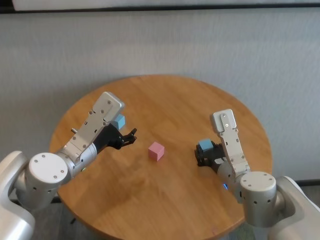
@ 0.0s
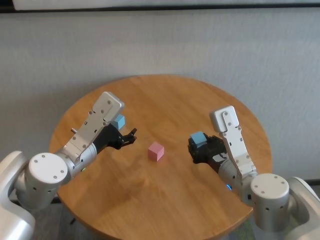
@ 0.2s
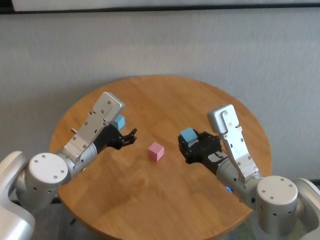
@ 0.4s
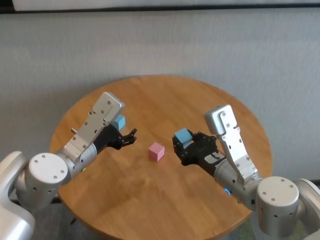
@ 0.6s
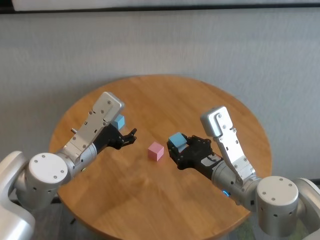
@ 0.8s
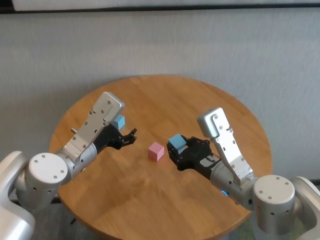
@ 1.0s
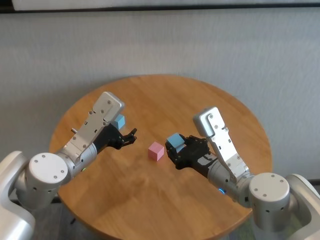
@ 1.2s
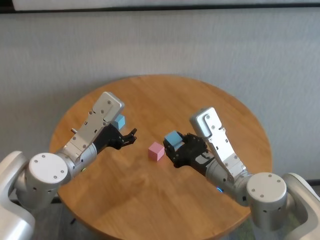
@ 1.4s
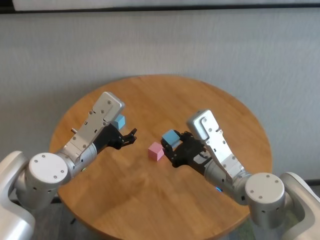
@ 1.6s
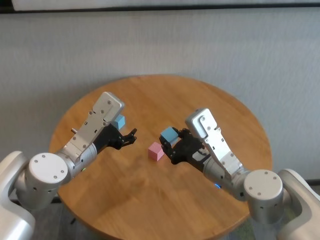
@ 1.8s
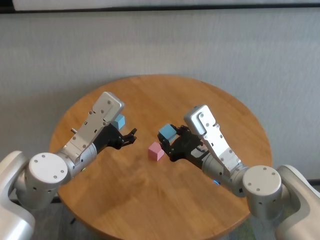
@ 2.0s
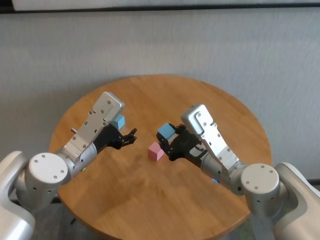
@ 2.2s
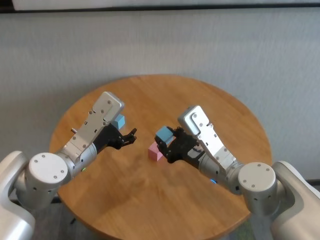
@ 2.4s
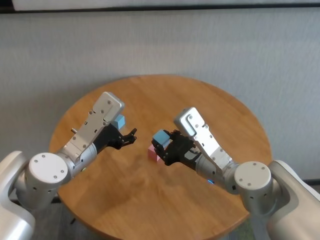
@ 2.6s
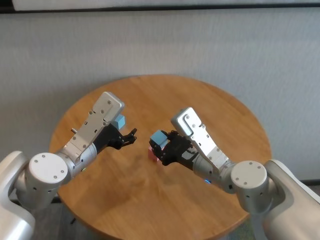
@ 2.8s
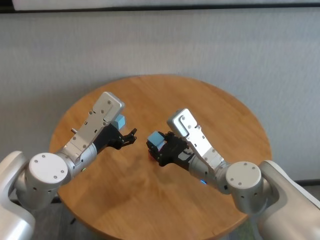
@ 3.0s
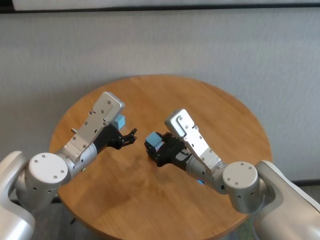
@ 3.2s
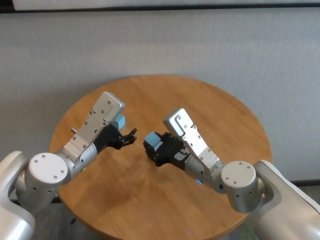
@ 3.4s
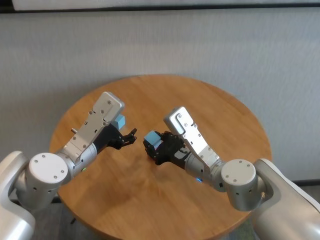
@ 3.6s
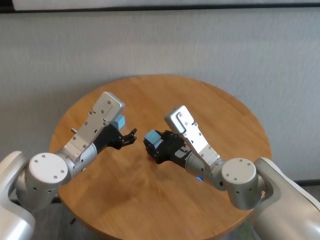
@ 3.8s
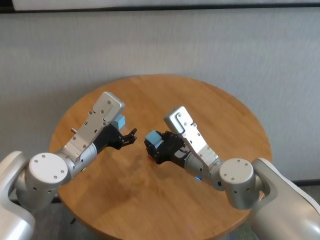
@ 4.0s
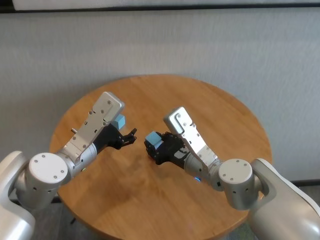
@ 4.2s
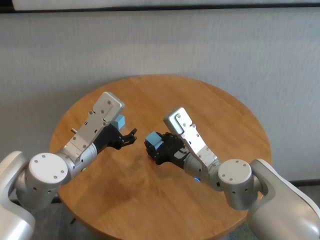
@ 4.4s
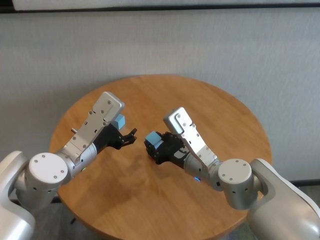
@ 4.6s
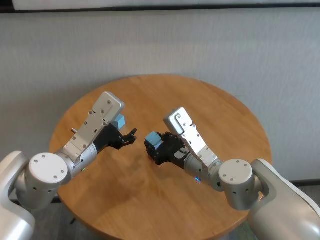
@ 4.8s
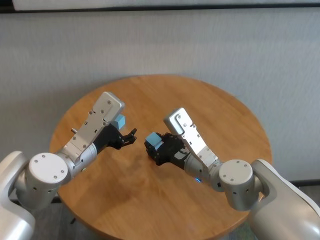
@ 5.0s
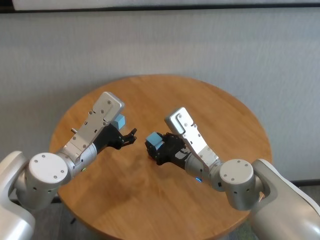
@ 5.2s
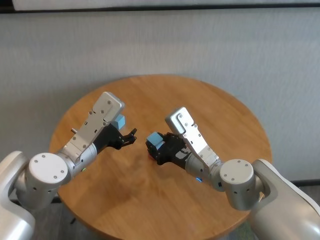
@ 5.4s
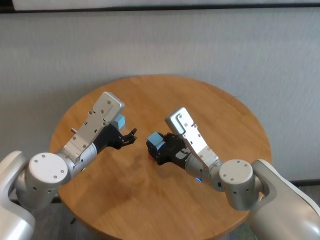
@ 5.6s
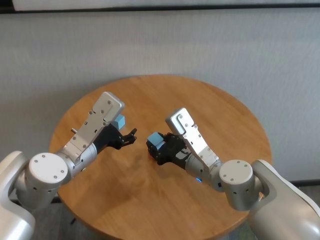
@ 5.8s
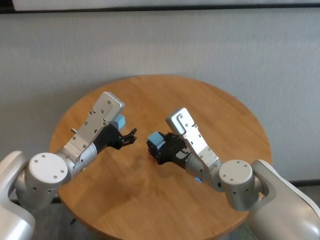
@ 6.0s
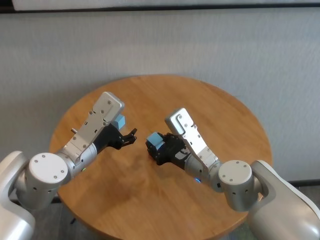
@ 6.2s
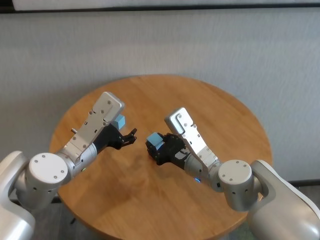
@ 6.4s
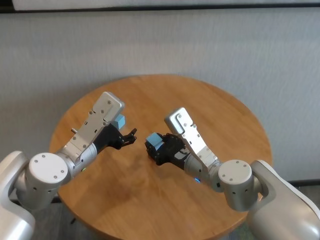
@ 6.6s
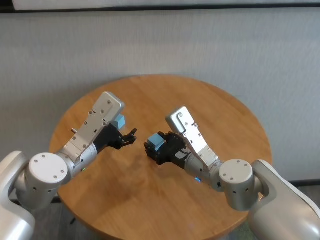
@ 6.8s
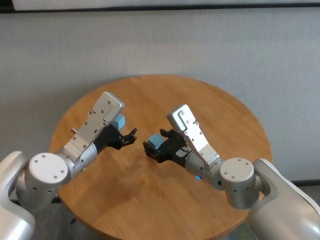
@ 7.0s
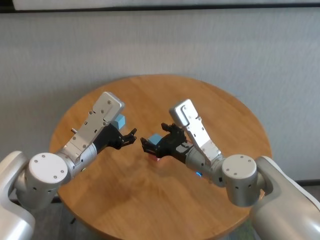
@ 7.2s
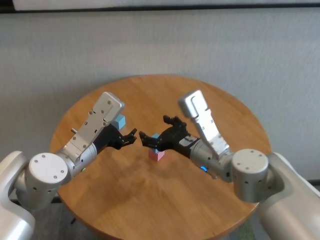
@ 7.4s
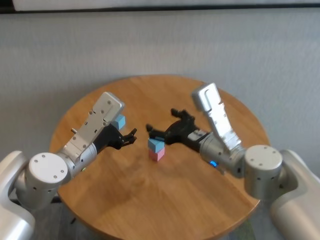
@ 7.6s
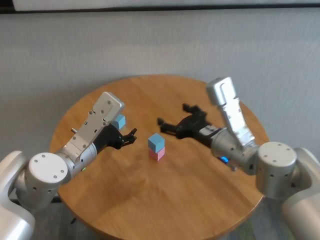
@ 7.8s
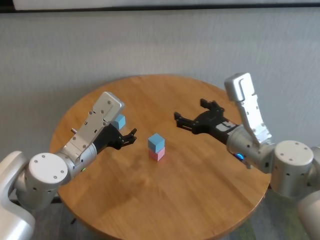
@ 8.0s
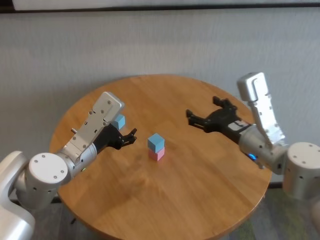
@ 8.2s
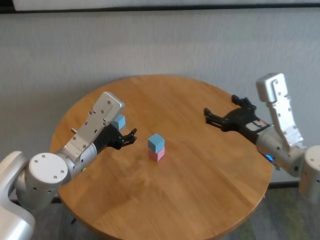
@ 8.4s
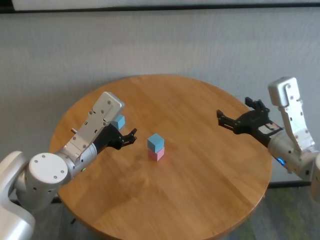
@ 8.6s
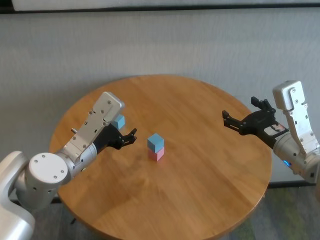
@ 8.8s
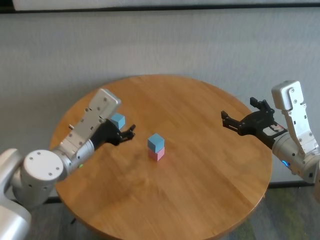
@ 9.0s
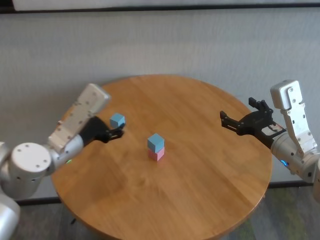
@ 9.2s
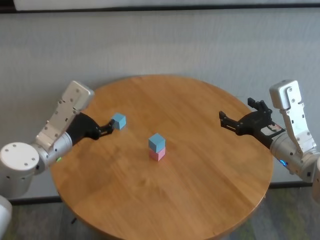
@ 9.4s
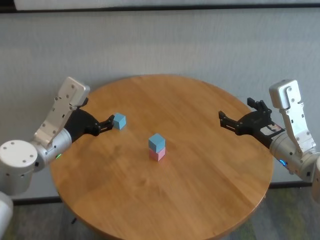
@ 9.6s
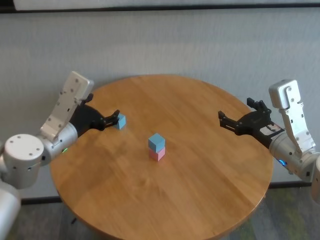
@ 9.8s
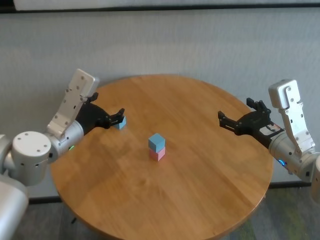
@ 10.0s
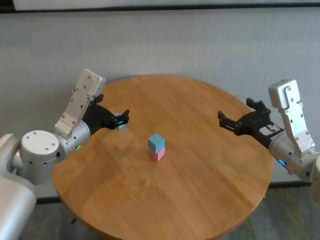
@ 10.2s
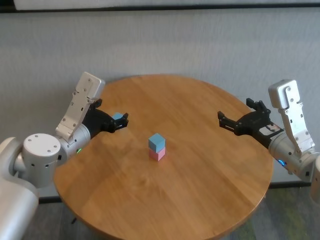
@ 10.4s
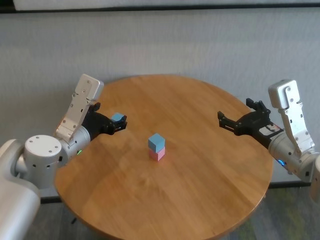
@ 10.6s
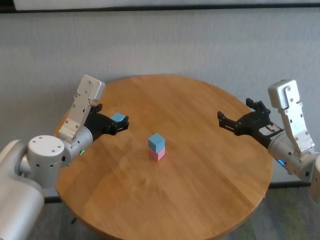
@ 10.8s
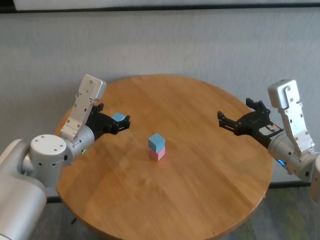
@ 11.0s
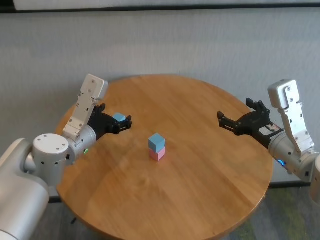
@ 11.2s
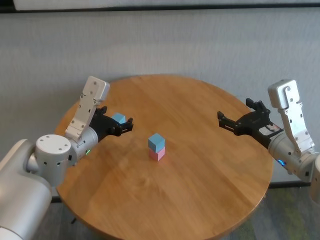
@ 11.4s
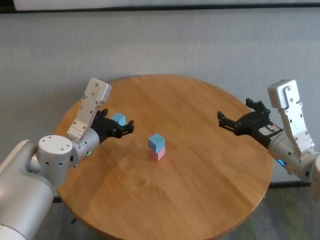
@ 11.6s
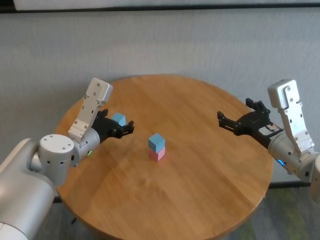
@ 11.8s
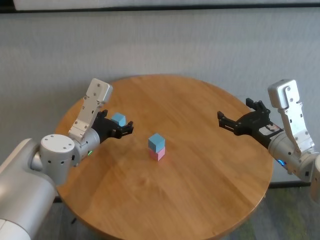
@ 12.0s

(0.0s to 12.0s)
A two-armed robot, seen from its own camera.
Task of the whole recording: stack building blocks on the table.
Step, 0.0s - 7.0s: Place the blue building block on the pink building blocks with right gripper.

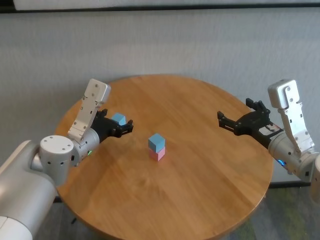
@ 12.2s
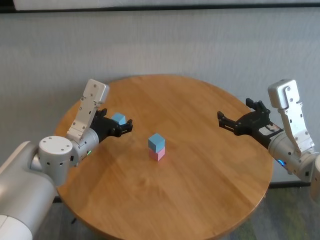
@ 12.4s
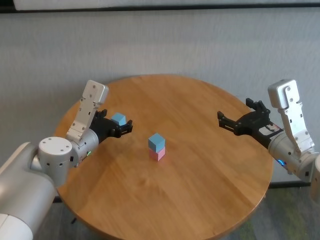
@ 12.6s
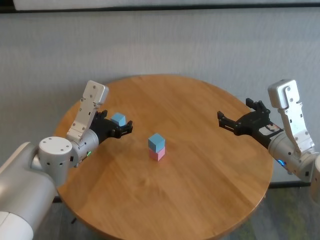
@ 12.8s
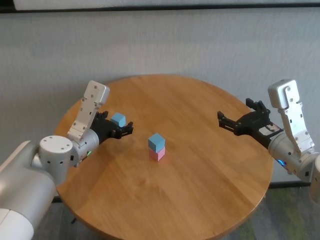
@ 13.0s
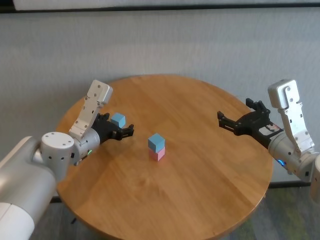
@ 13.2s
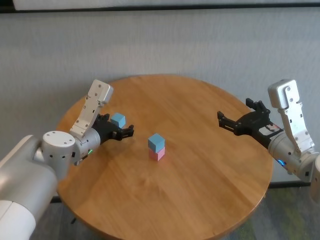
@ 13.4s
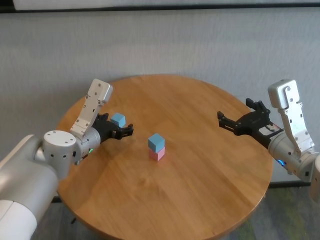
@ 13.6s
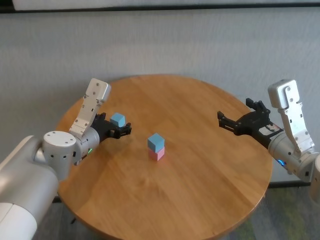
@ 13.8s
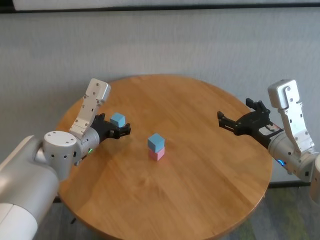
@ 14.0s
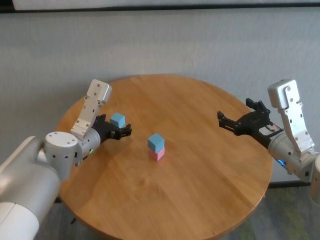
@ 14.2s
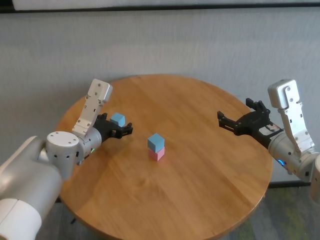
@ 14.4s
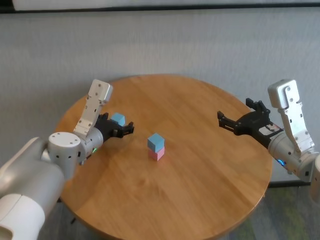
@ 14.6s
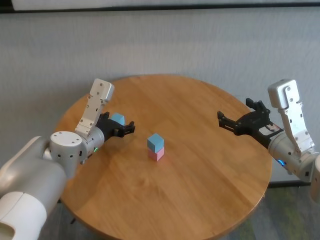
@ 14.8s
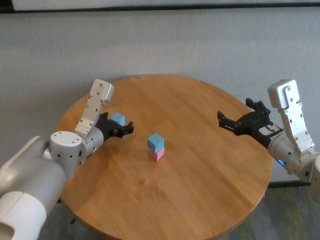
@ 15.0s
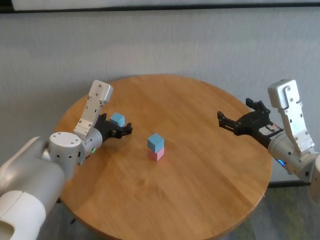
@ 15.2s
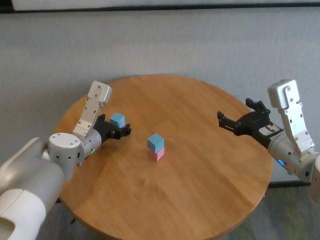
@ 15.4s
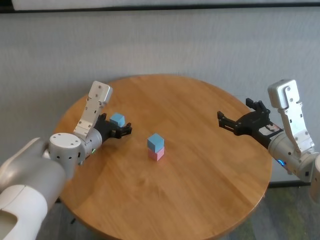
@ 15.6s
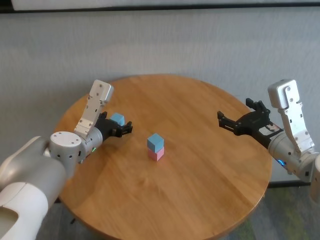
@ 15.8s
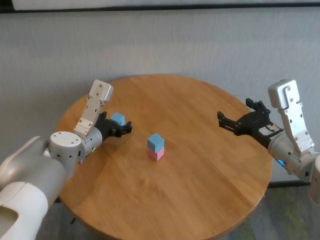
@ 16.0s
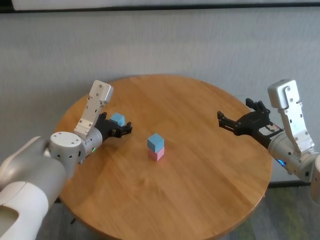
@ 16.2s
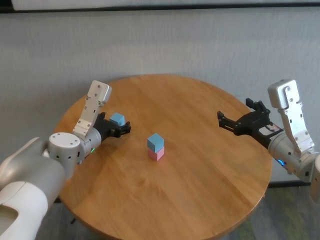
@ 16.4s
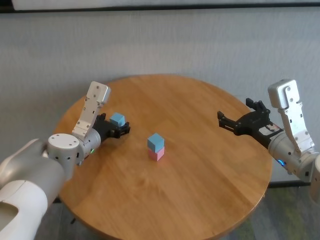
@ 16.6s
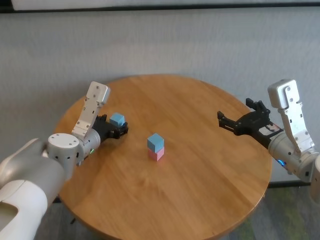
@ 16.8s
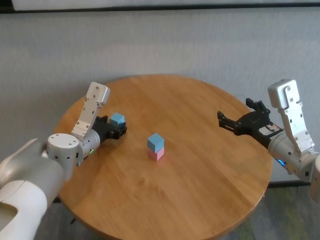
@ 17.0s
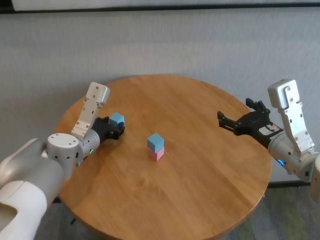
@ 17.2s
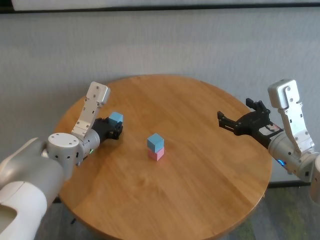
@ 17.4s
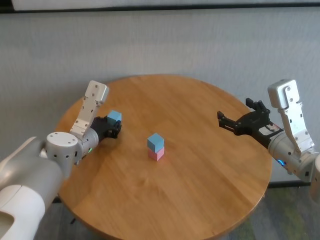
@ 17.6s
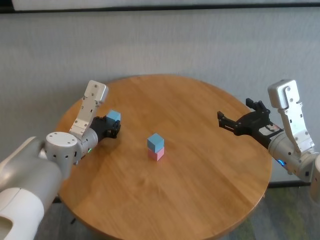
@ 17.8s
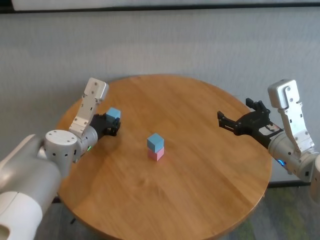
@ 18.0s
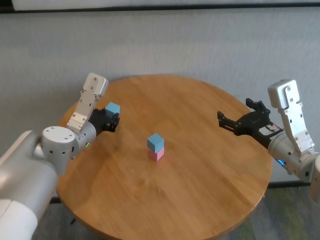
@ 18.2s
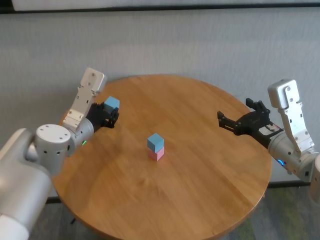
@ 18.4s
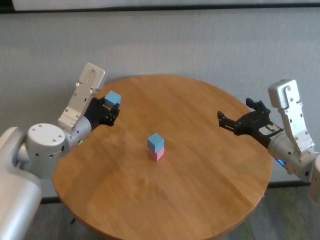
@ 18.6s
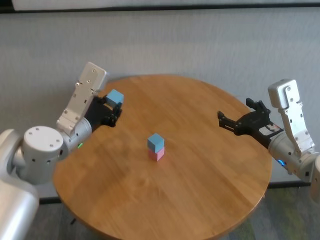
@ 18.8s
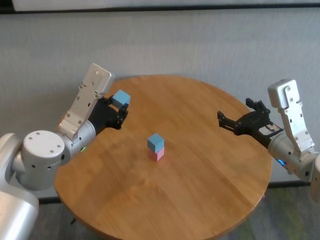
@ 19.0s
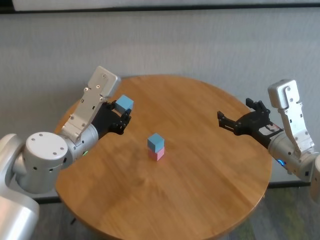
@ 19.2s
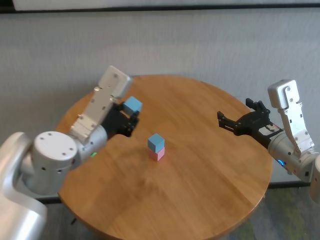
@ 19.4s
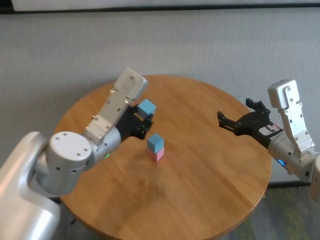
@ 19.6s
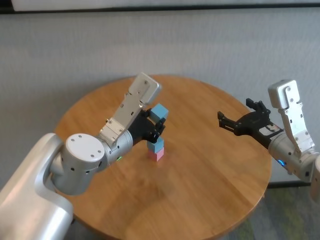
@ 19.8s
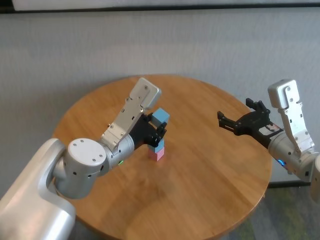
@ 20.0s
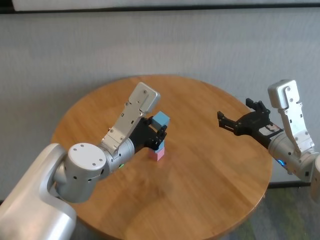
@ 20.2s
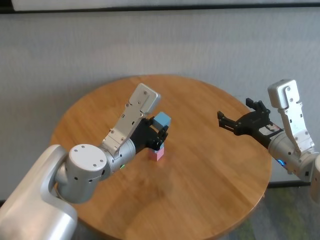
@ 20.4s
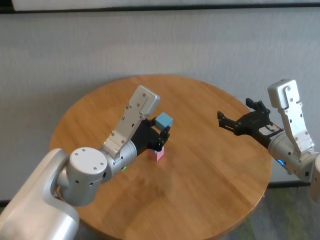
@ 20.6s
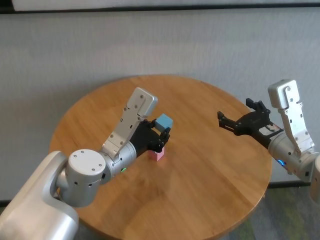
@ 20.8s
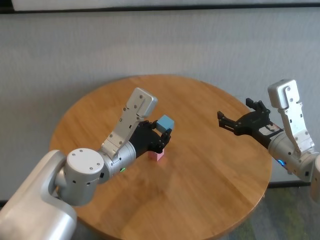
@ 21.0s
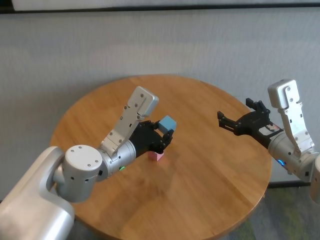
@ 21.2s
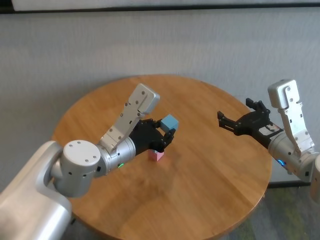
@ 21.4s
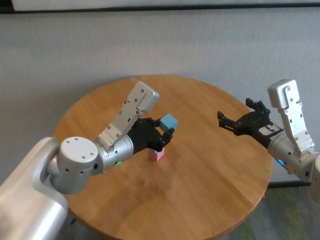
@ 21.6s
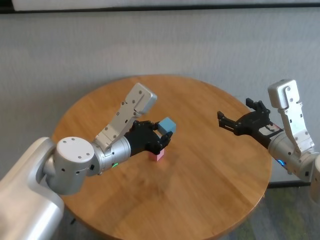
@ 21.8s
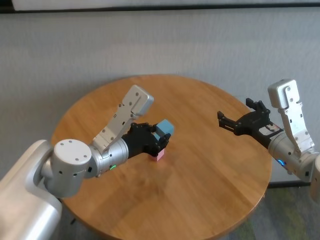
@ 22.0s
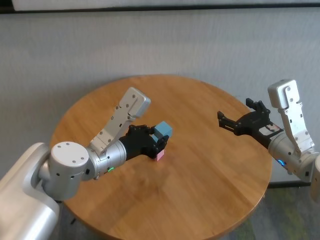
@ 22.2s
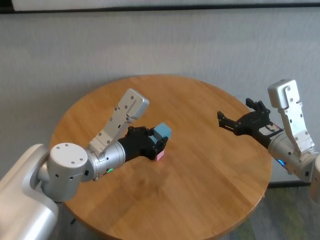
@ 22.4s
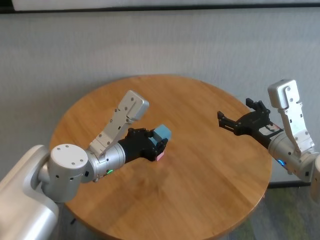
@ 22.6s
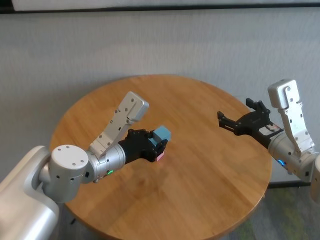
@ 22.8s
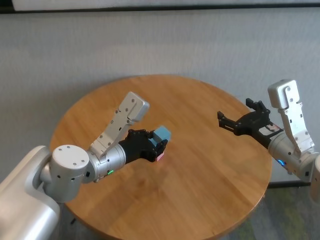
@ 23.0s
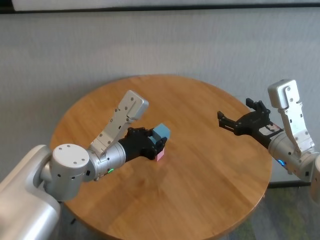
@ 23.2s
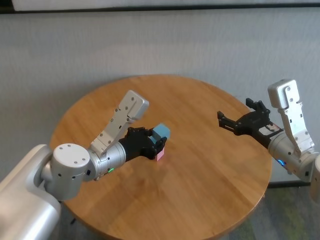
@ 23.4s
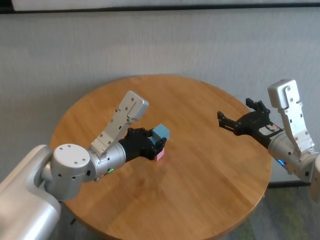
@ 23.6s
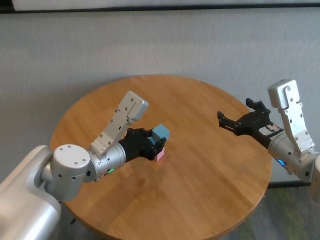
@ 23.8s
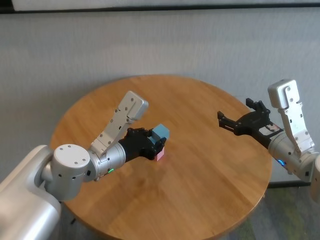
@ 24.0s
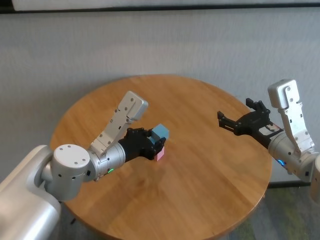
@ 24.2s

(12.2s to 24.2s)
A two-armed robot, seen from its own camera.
Task of the whole recording: stack building blocks on the table.
Step, 12.2s - 17.4s: Grasp the blue building block with left gripper.
